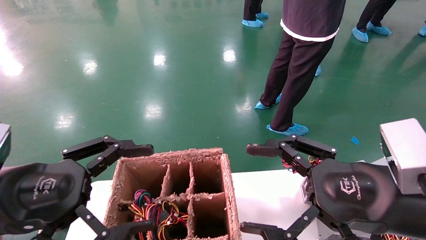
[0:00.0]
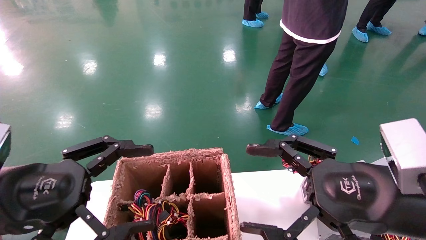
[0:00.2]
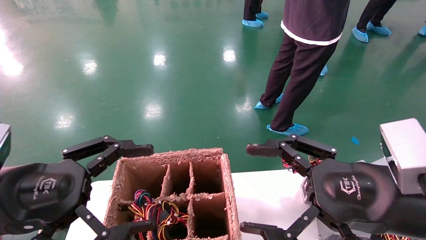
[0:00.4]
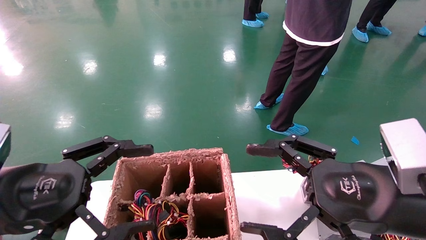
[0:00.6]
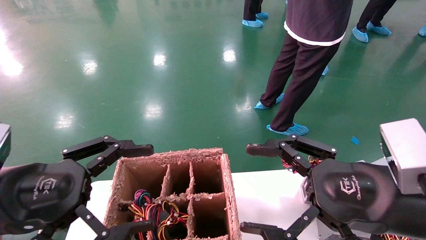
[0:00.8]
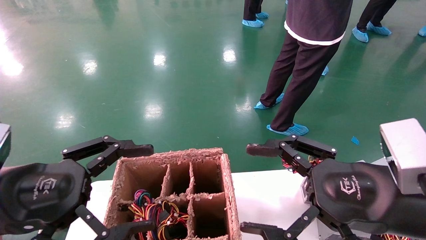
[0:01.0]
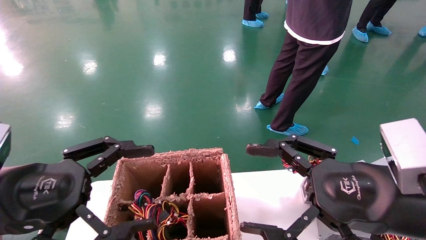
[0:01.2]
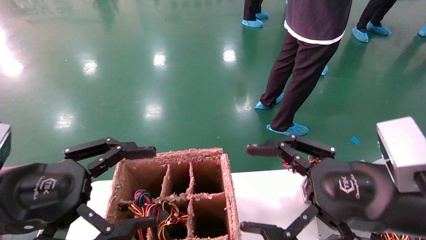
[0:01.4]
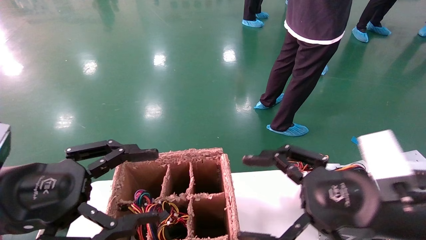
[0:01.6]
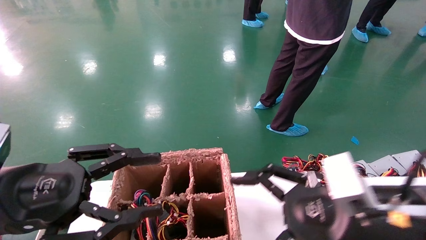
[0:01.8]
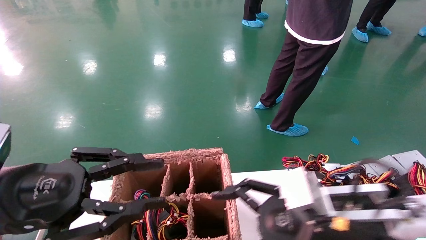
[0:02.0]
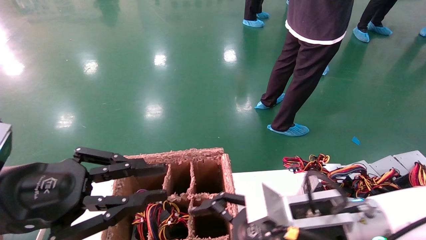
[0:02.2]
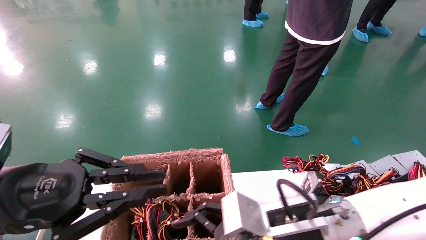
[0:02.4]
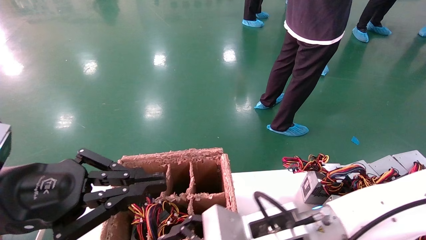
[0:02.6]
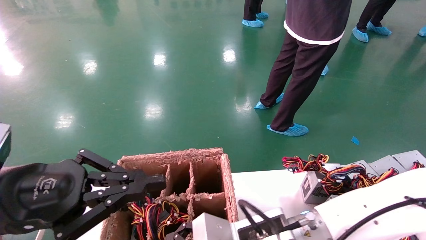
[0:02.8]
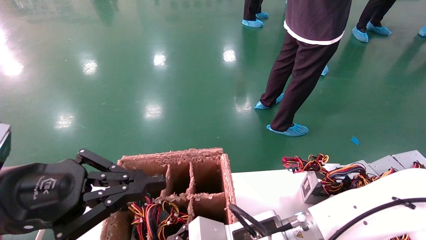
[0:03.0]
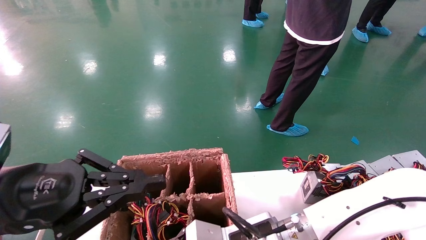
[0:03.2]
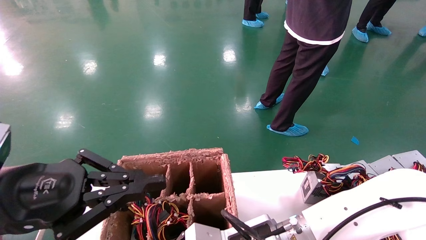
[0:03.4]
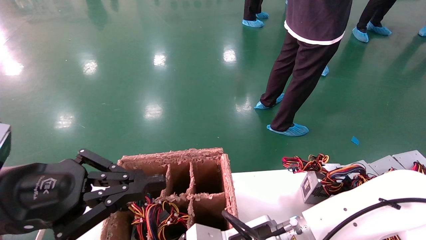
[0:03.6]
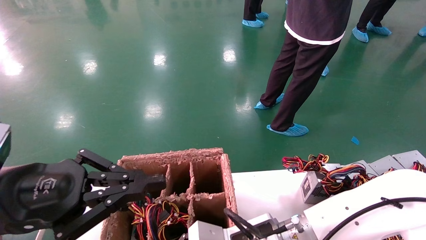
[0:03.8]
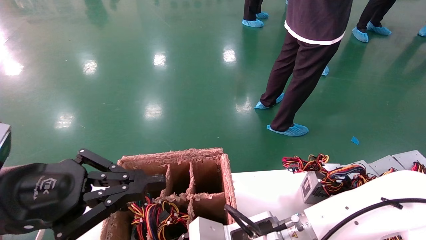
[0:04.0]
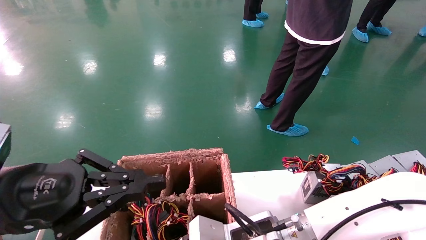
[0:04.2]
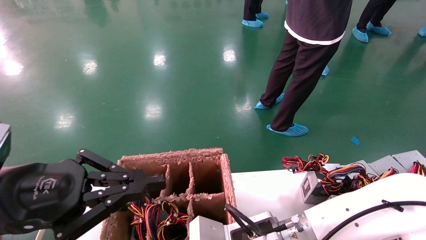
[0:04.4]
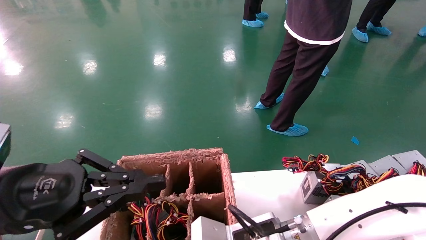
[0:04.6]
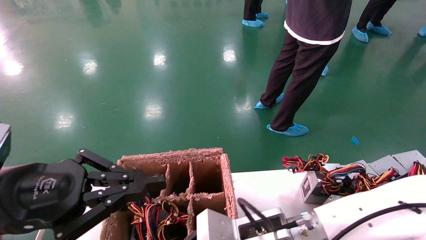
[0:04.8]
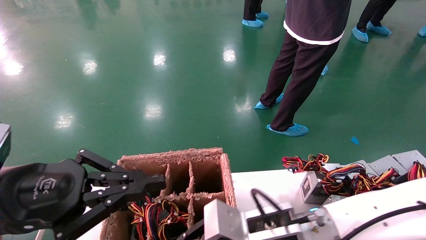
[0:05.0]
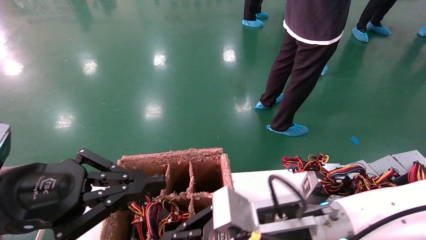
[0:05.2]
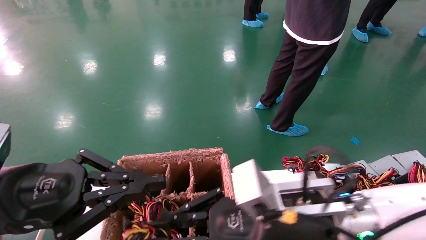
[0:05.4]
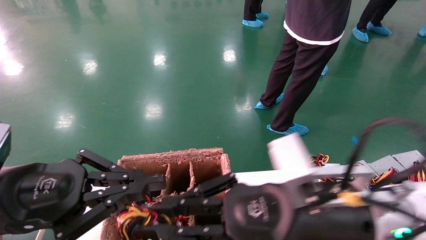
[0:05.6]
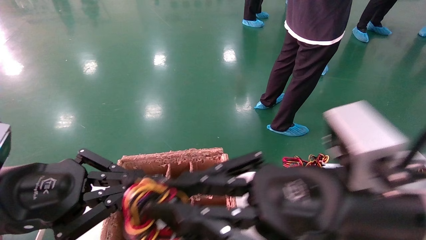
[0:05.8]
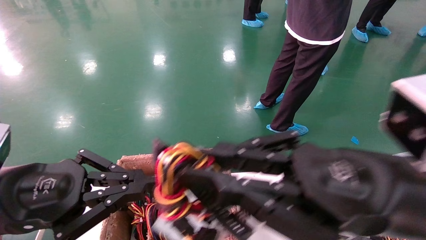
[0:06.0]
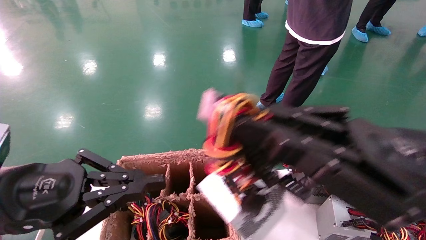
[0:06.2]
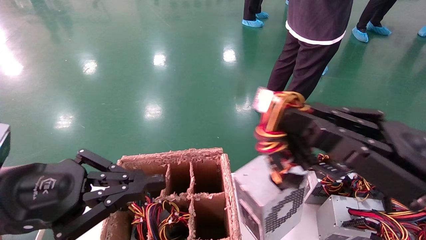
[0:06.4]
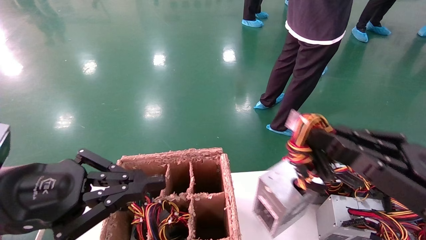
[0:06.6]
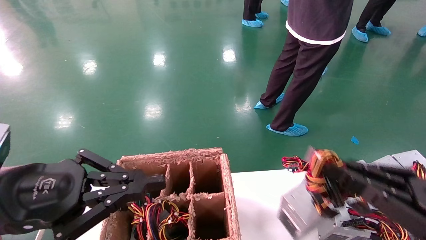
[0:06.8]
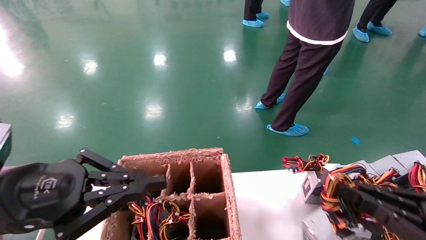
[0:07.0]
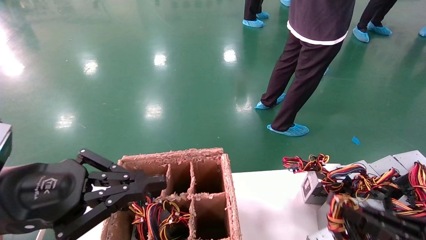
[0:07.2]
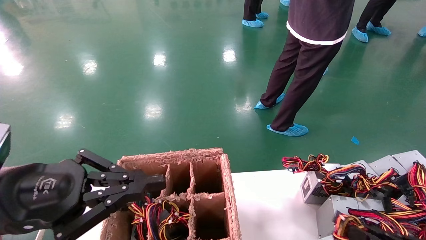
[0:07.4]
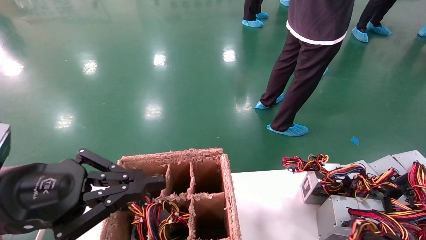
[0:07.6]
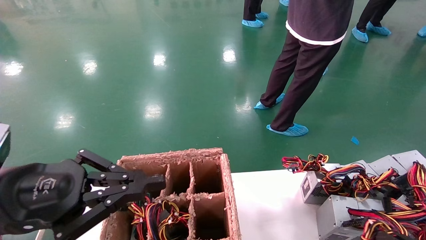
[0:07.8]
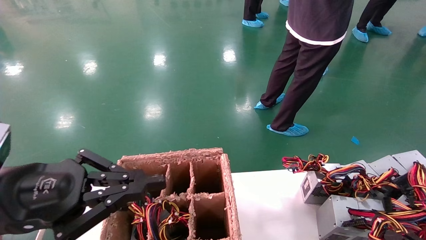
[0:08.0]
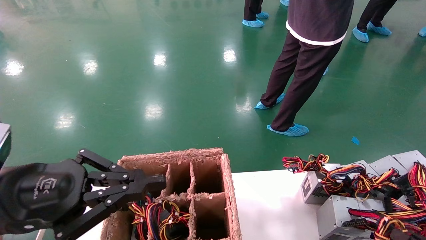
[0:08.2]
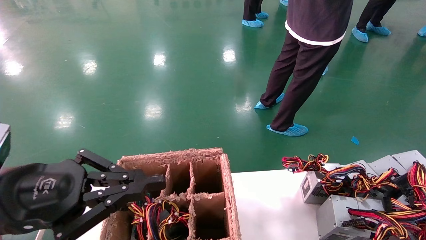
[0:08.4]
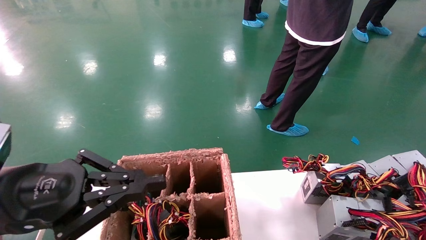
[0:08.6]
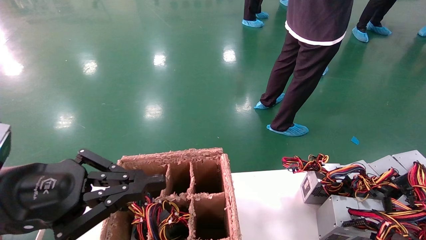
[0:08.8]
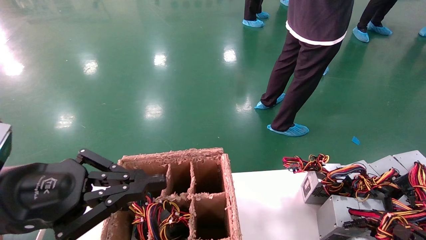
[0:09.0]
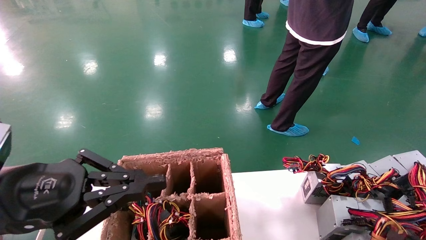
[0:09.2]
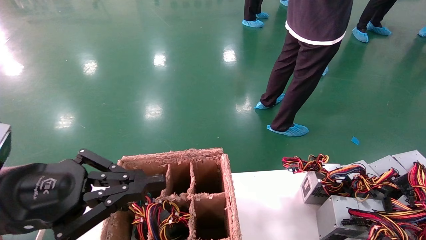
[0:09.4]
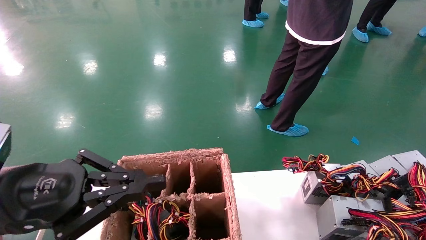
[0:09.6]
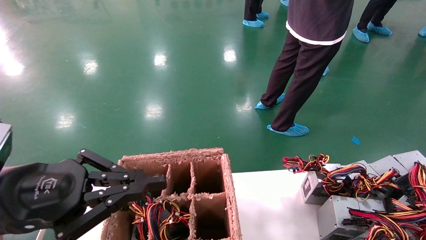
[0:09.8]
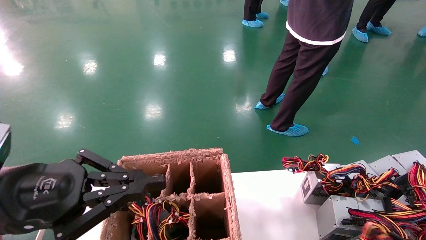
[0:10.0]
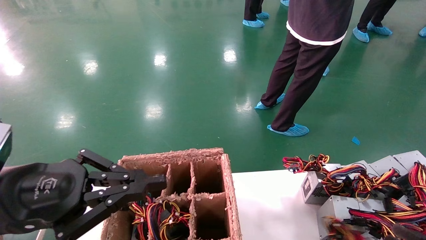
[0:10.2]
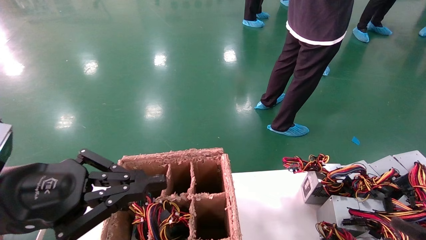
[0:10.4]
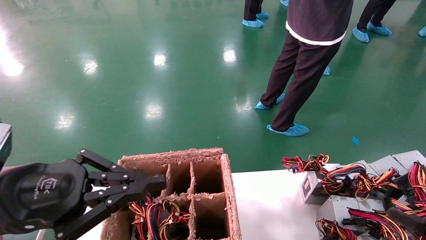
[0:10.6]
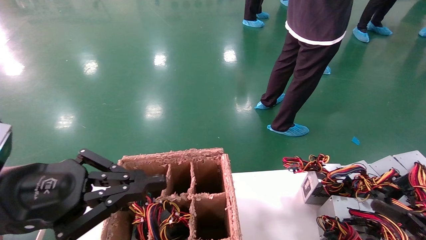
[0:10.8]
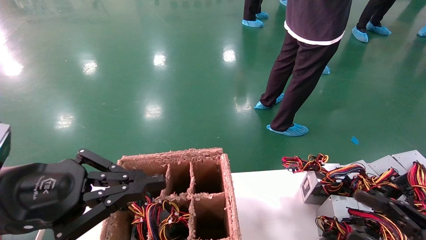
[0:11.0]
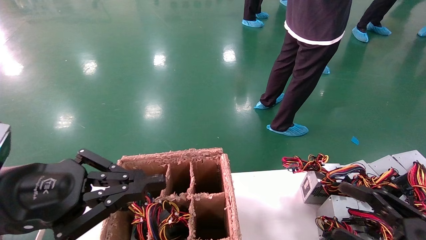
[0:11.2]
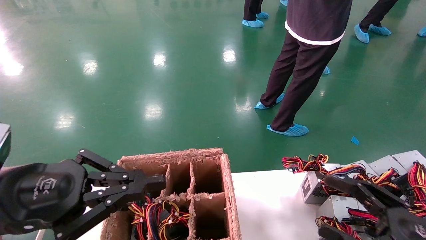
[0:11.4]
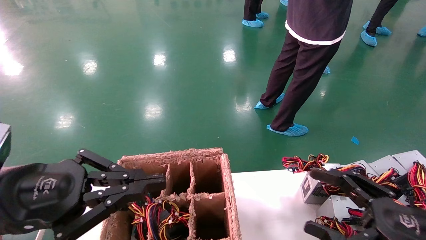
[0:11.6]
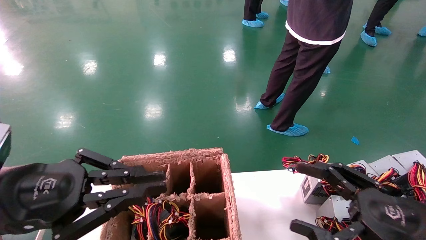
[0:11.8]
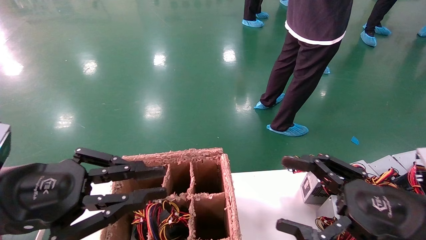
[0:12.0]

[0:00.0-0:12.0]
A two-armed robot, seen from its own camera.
Step, 0:01.6 to 0:04.6: Grab the main unit power supply from the containment box.
Step, 0:04.8 to 0:10.2: Place the main unit power supply in the designated area.
0:00.0 to 0:01.6: The grippers make only small movements.
0:01.6 to 0:03.0: The right gripper heads to the left and downward, covering approximately 15 cm, while the left gripper closes up.
0:03.0 to 0:04.4: The right gripper closes its fingers.
0:04.4 to 0:06.0: The right gripper moves upward, to the right and backward, about 20 cm, and closes up.
0:06.0 to 0:07.6: The right gripper goes roughly 30 cm to the right and downward.
0:07.6 to 0:09.0: The right gripper moves some 5 cm.
0:09.0 to 0:10.4: The right gripper opens its fingers.
0:10.4 to 0:12.0: The right gripper travels to the left, upward and forward by roughly 20 cm, and opens.

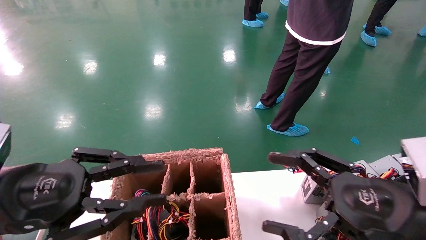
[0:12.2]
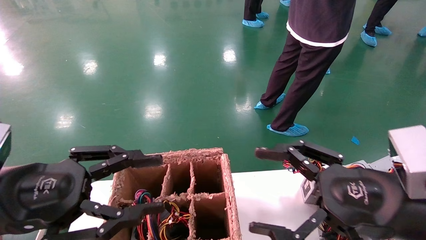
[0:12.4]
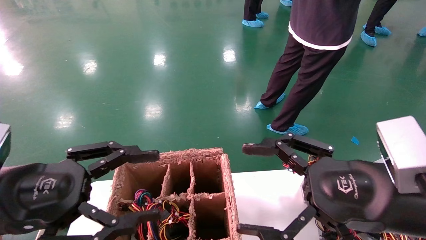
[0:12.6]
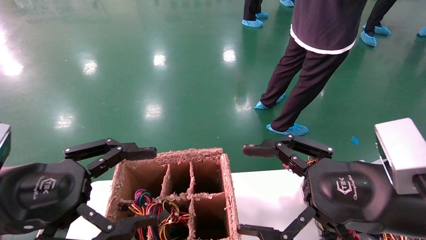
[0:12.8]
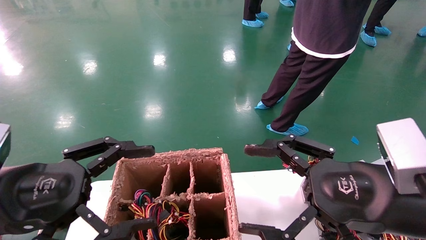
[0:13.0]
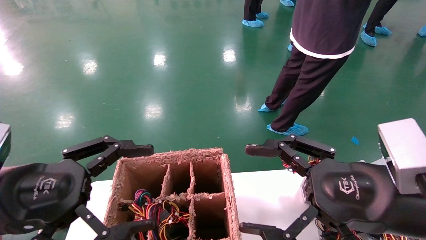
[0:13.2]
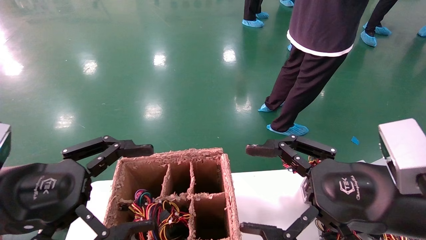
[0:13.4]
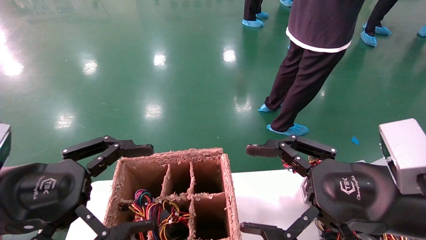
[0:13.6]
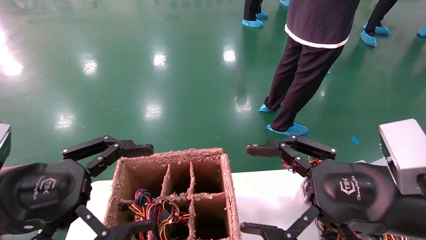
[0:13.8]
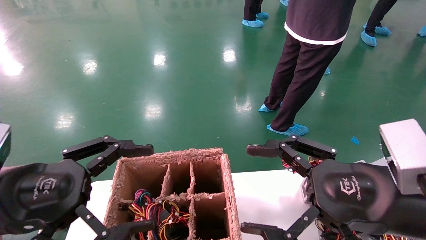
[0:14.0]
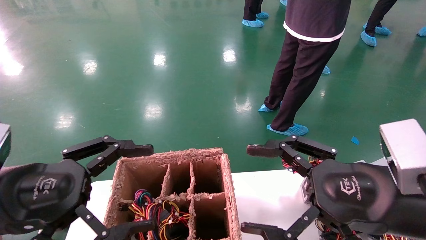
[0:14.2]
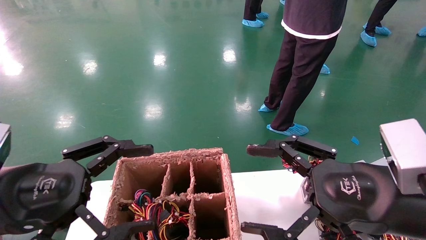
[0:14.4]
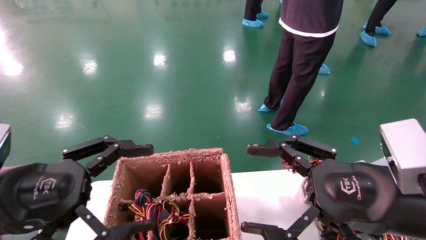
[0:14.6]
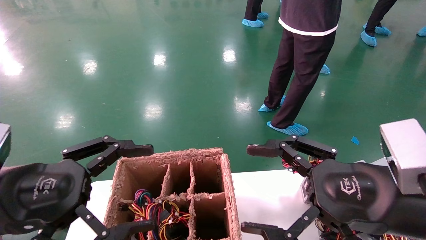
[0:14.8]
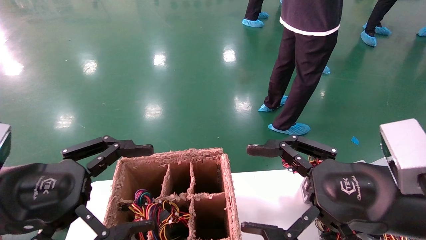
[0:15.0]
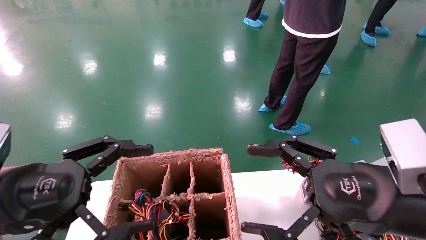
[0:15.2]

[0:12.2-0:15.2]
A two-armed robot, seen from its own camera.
0:12.2 to 0:13.8: The left gripper opens up.
0:13.8 to 0:15.2: The two grippers keep their place.

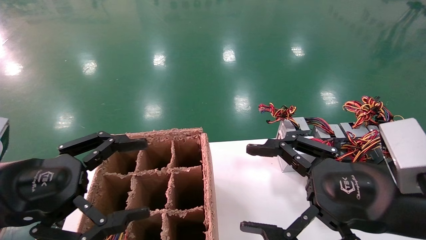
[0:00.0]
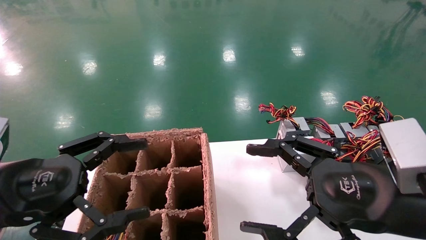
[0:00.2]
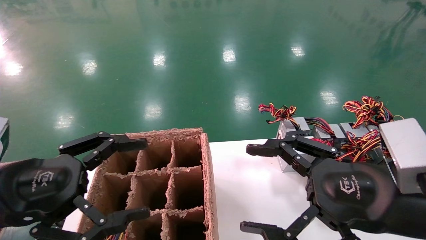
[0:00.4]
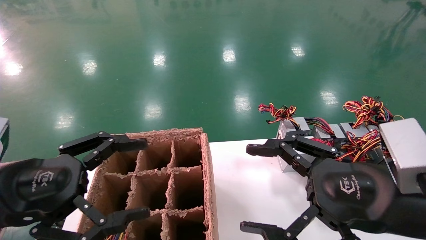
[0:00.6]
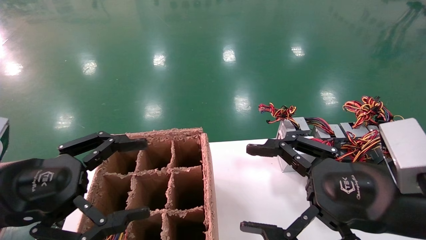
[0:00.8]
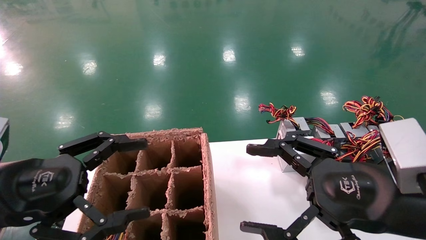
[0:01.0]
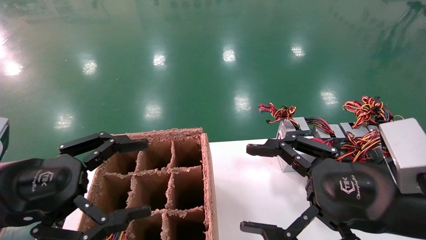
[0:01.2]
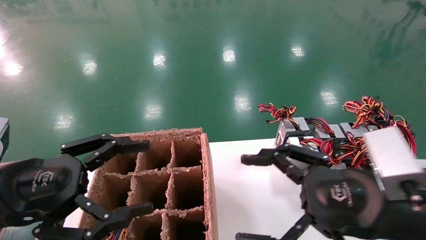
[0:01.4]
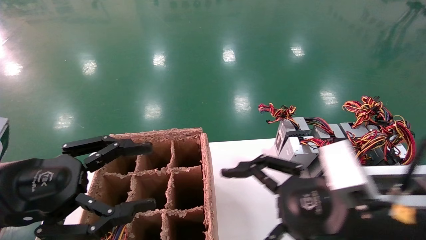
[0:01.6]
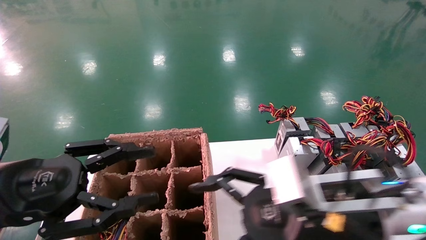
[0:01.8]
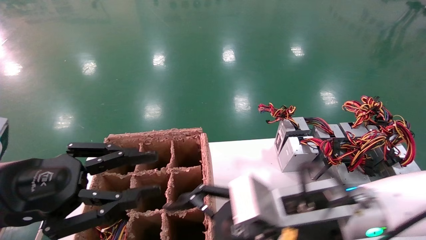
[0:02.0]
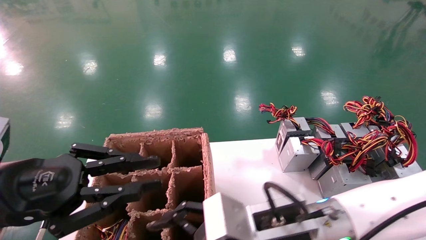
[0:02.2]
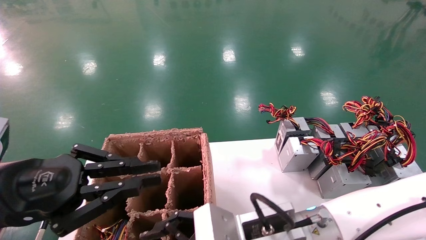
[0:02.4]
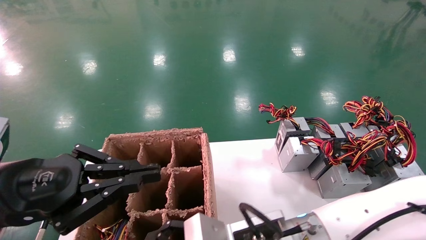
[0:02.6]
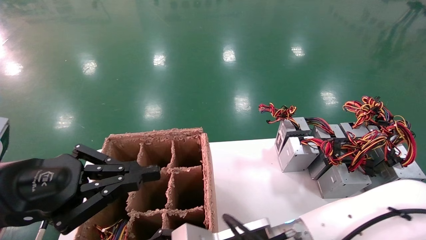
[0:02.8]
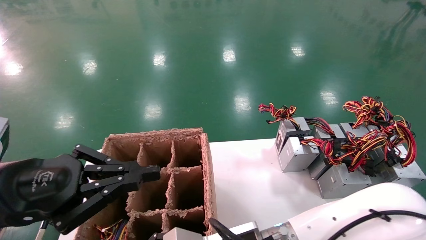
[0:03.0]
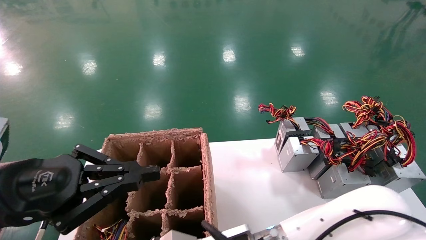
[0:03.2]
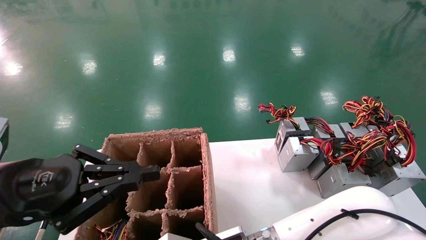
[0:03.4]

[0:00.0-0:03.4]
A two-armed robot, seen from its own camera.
0:00.0 to 0:01.6: The right gripper ends up about 5 cm from where it was.
0:01.6 to 0:03.4: The left gripper closes up. The right gripper goes about 20 cm to the left and downward.
